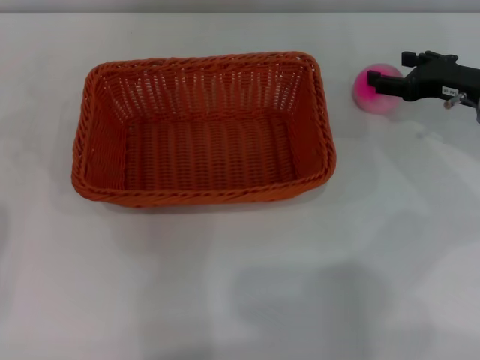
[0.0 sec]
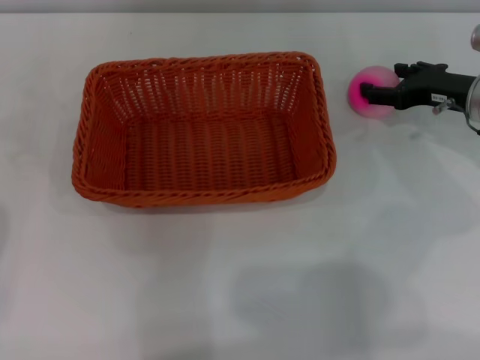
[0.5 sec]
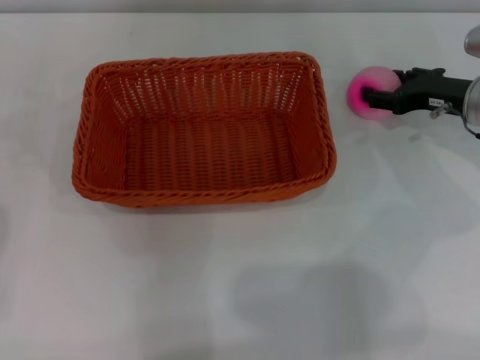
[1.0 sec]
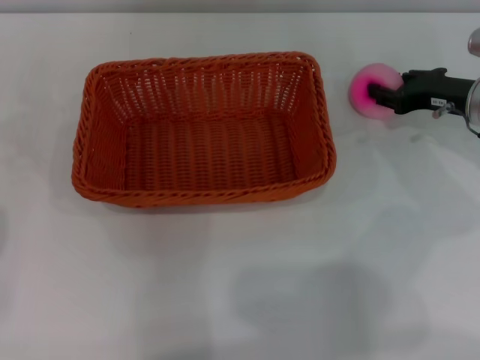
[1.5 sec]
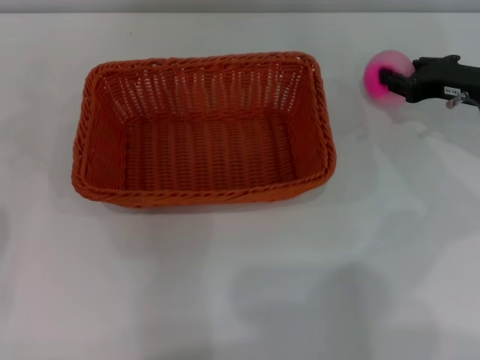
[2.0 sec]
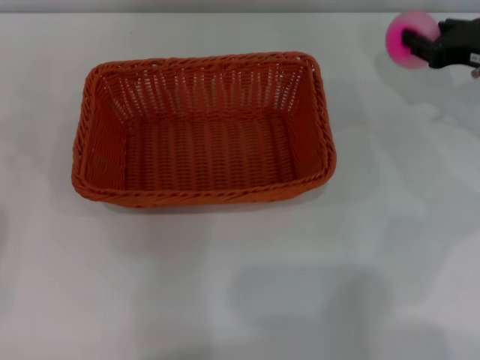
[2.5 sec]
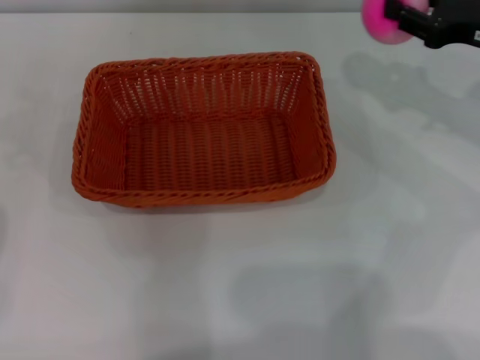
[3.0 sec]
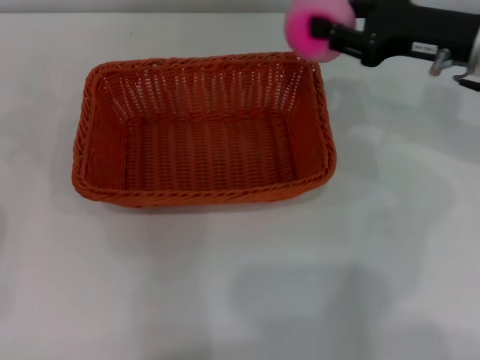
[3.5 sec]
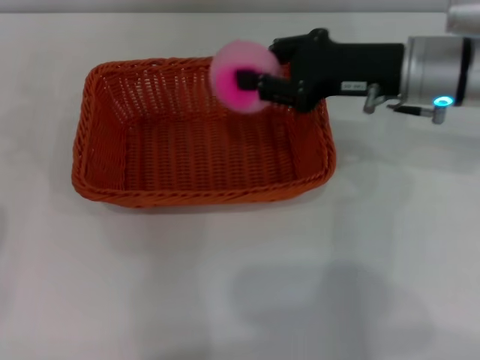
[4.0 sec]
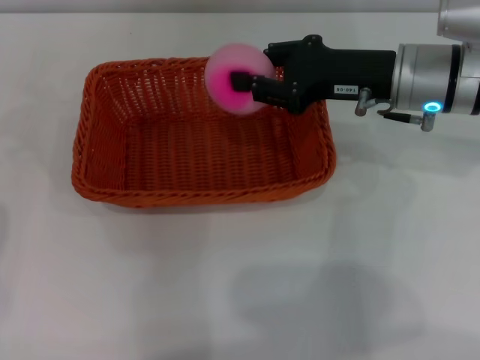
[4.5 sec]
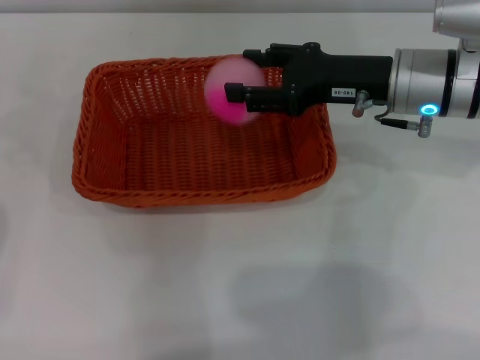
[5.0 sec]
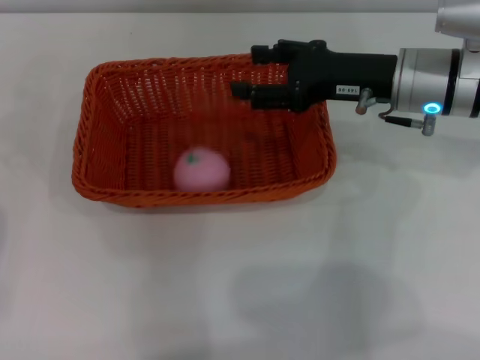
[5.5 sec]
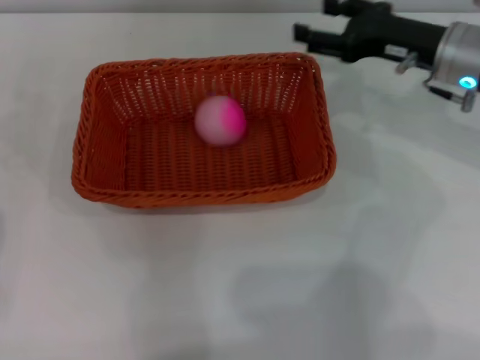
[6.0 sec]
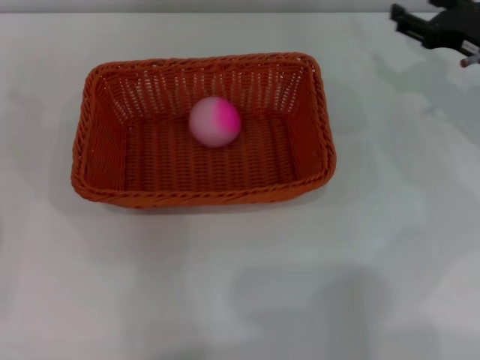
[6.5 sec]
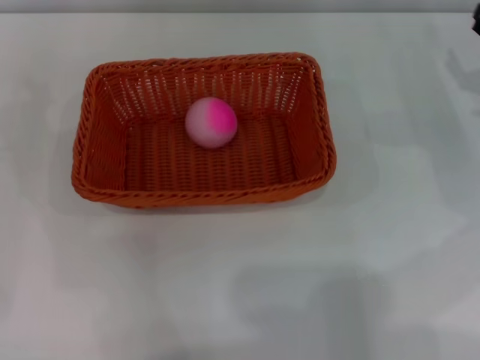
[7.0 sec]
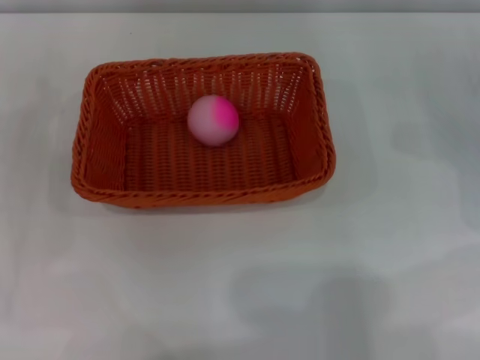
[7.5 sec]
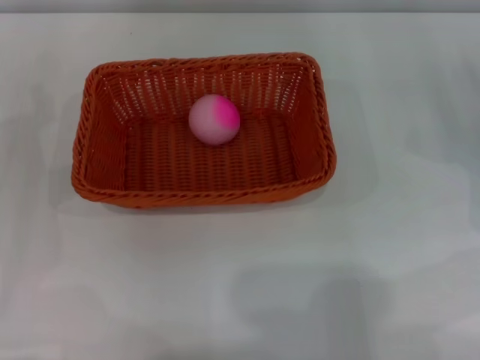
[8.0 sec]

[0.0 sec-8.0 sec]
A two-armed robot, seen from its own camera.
Step, 0.0 sec to 2.0 sec: Pick up the peach with the left gripper.
0.0 sec to 2.0 sec: The right gripper closes up.
2.0 sec to 4.0 sec: The right gripper is displaced to the left and upward by approximately 15 cm.
4.0 sec to 6.0 sec: The right gripper travels to the right by roughly 5 cm, and opens up.
6.0 sec to 8.0 sec: The left gripper is displaced downward by roughly 10 cm; the right gripper shifts some 15 cm to the right, downward and backward.

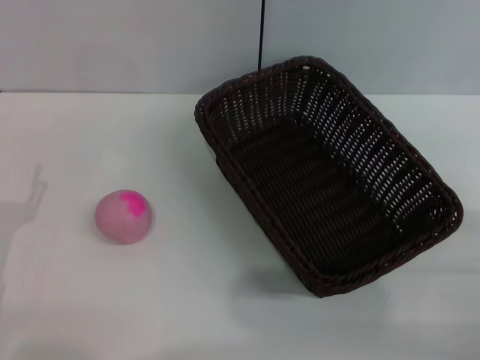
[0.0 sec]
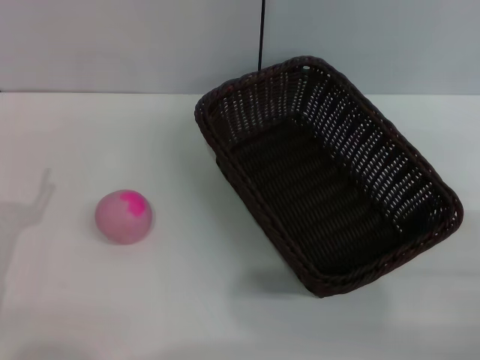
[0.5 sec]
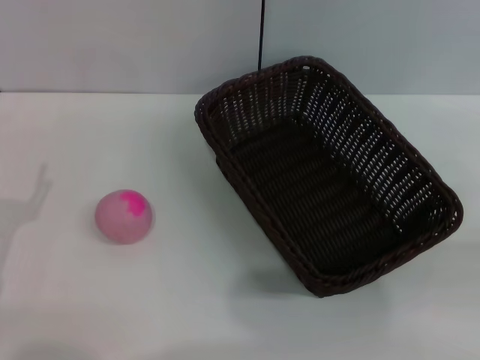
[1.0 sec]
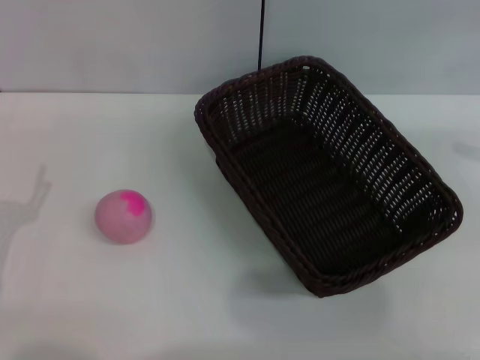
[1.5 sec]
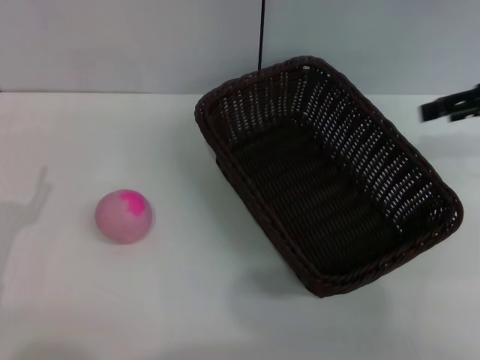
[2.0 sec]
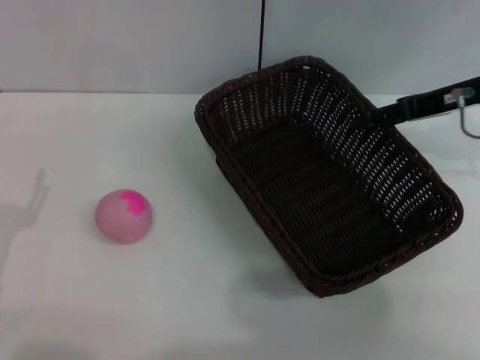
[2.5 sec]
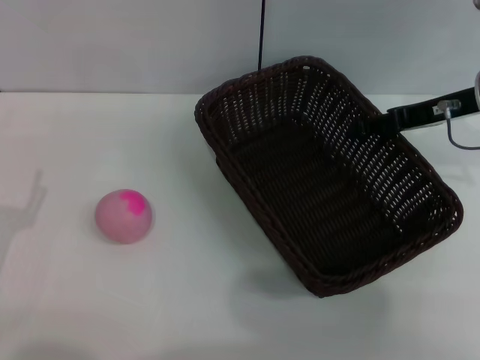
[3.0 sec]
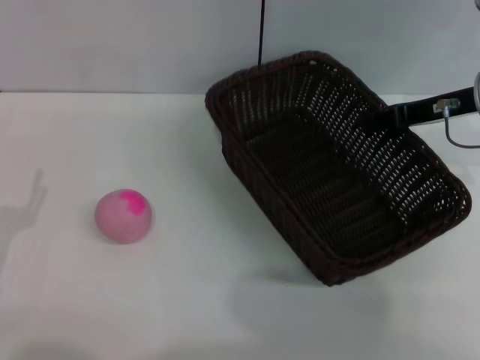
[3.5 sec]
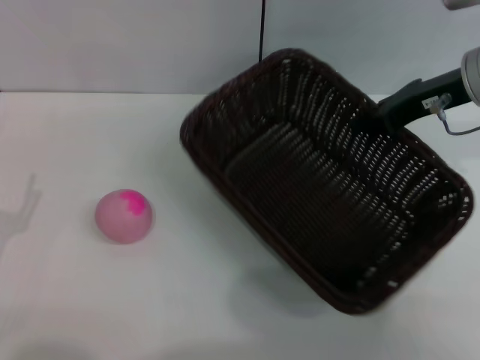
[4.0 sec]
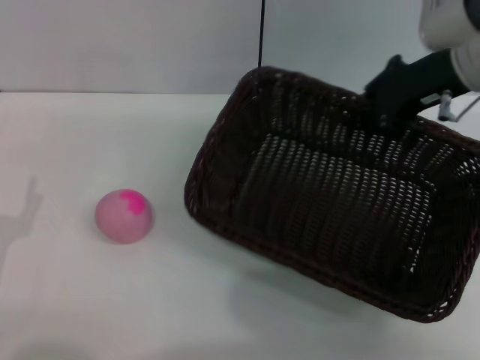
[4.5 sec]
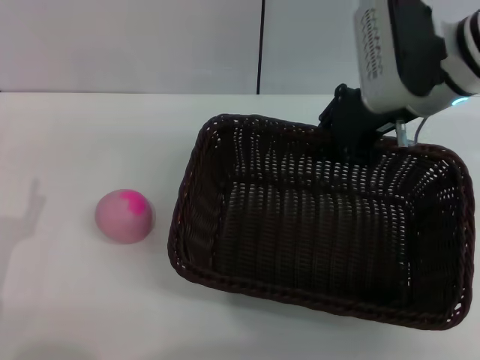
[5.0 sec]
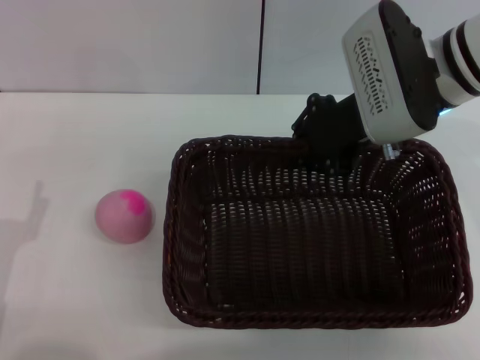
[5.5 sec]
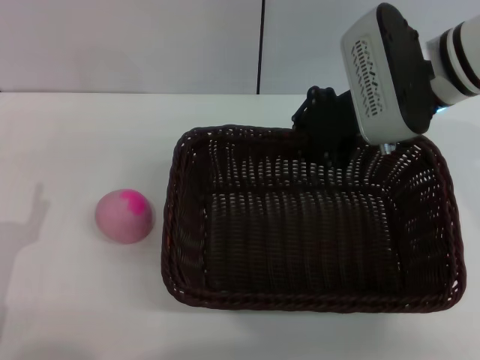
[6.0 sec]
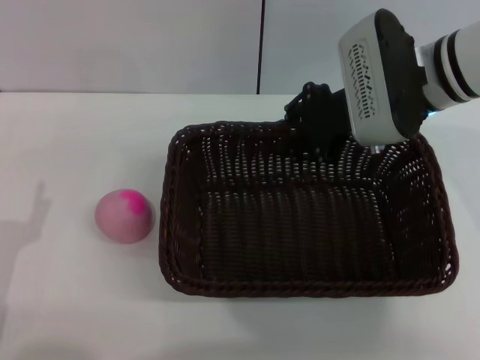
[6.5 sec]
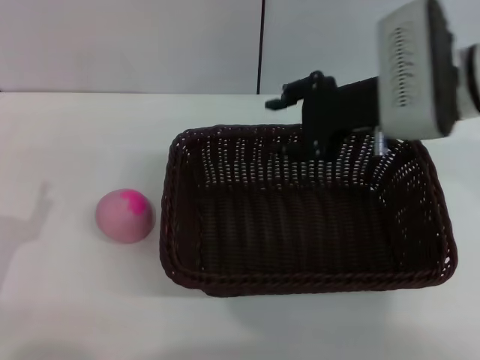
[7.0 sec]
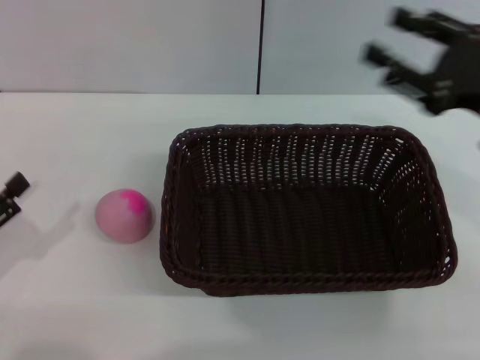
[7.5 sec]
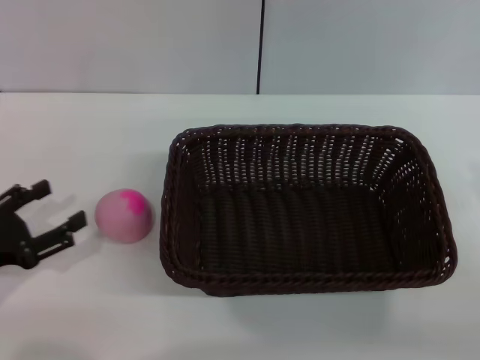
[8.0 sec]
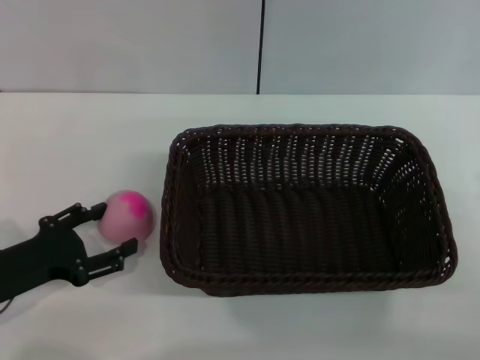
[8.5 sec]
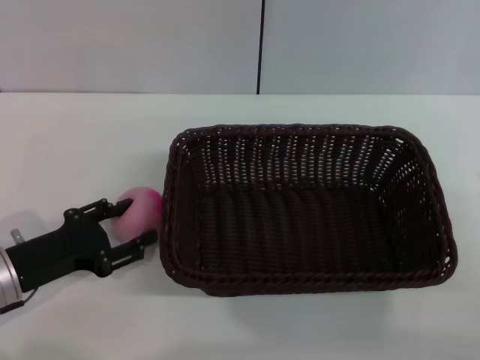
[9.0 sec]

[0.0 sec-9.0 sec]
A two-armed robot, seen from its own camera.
Step, 0.0 sec to 4.0 sec: Pick up the dark basket with the right gripper.
Step, 4.5 sec to 7.0 sec: Place the dark basket in the center of view with the right gripper.
0.0 sec to 2.0 sec: The right gripper goes approximately 25 cm forward and upward.
2.0 sec to 4.5 sec: The right gripper travels to the left by some 10 cm, and closes its fingers.
4.5 sec to 7.0 sec: The right gripper ends up about 5 cm from where it was, and opens its fingers.
7.0 sec to 9.0 sec: The left gripper heads forward, covering some 5 cm. Meanwhile the right gripper goes approximately 30 cm backward, to the right and downward.

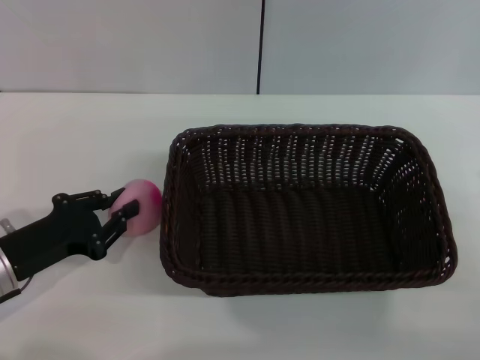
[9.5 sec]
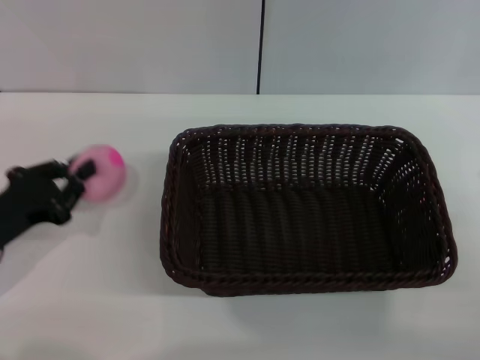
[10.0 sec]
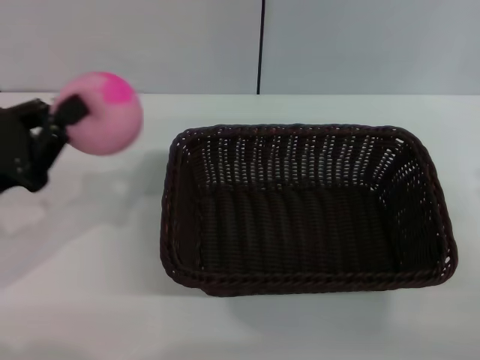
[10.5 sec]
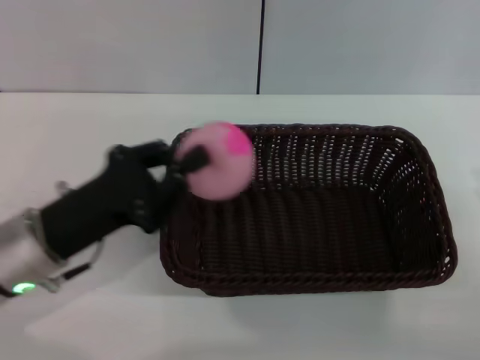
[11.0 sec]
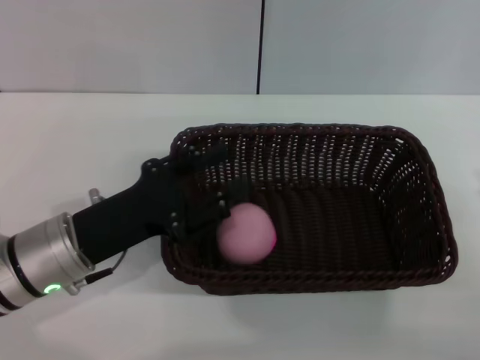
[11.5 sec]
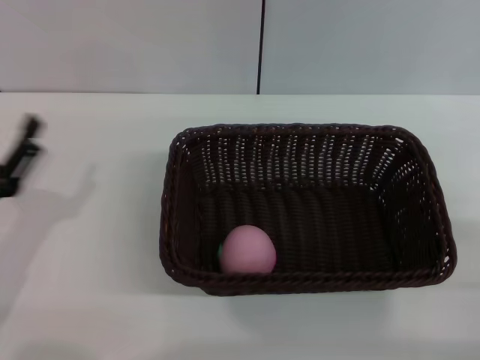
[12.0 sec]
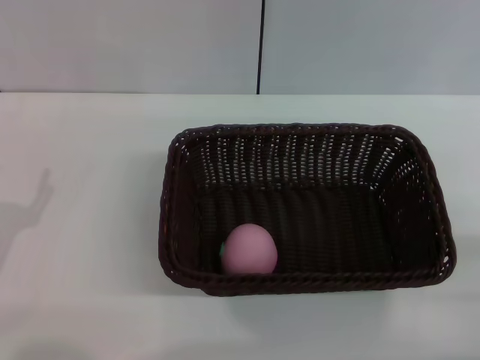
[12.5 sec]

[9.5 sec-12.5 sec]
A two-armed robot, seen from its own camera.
Step, 11.0 sec to 12.0 sec: Place the peach into the basket with the left gripper.
9.5 sec to 11.0 sec: The left gripper moves upward, roughly 5 cm, and closes up.
11.0 sec to 12.5 sec: The left gripper goes approximately 10 cm to the left and backward, and opens up.
